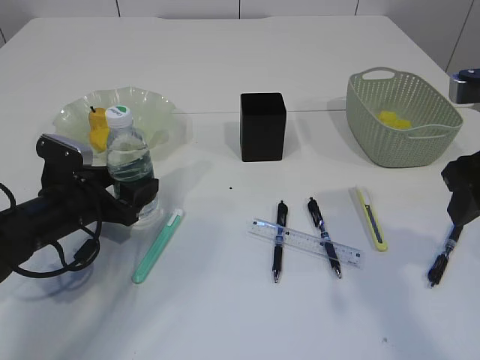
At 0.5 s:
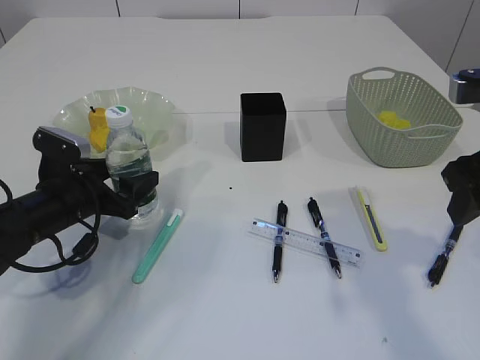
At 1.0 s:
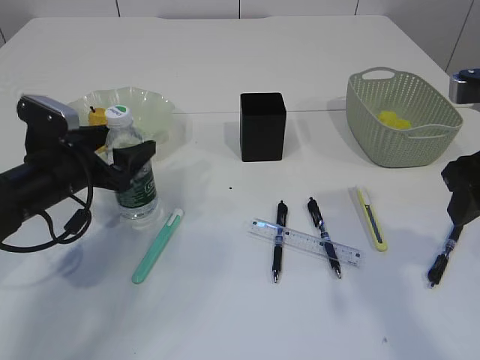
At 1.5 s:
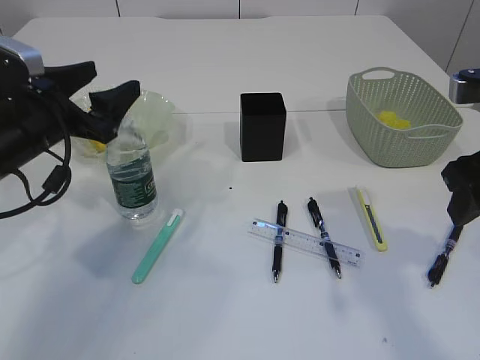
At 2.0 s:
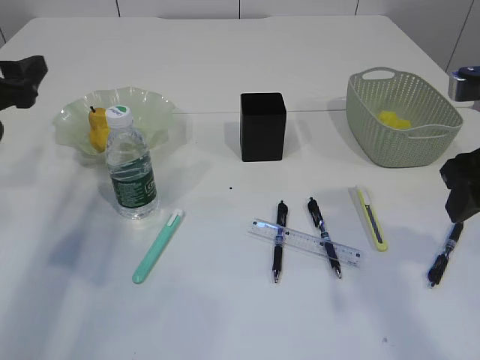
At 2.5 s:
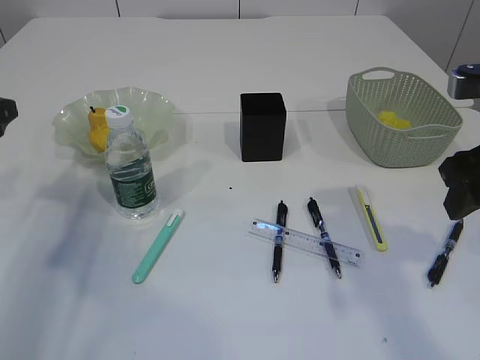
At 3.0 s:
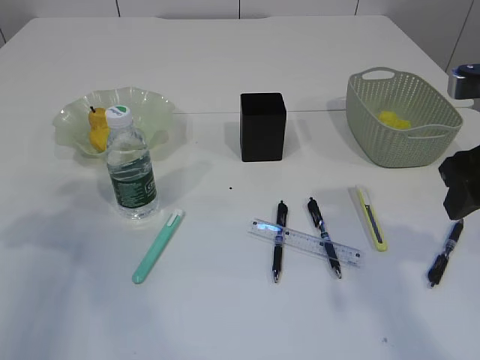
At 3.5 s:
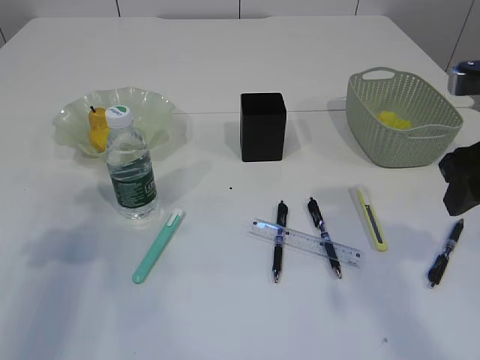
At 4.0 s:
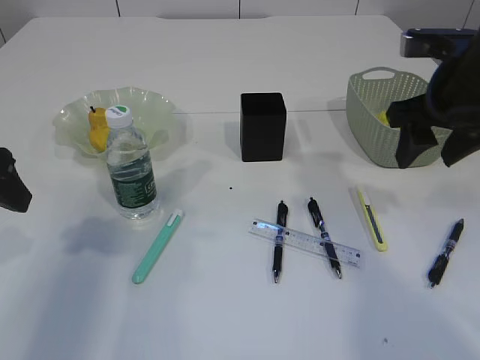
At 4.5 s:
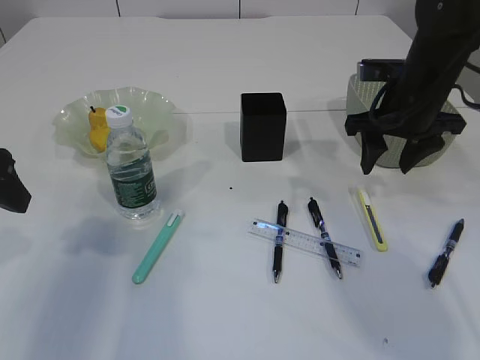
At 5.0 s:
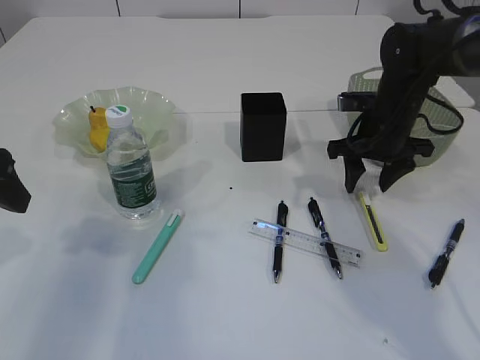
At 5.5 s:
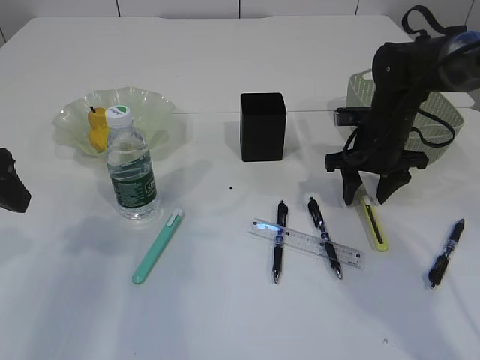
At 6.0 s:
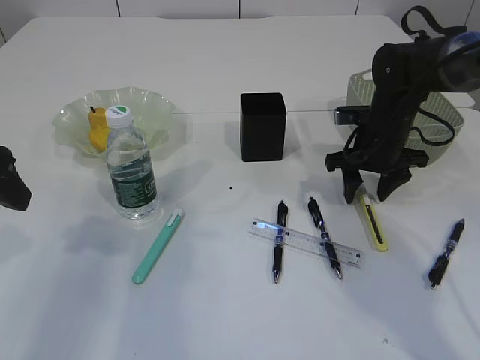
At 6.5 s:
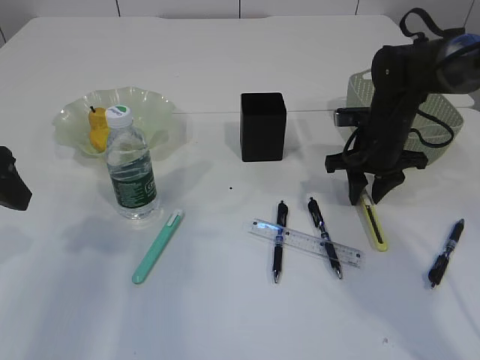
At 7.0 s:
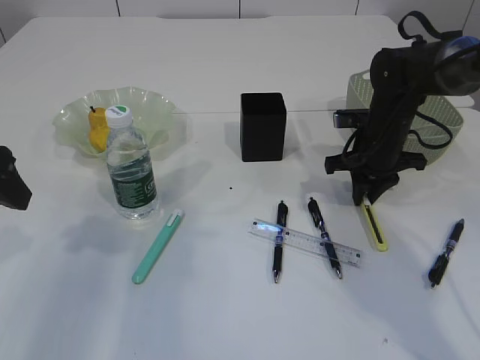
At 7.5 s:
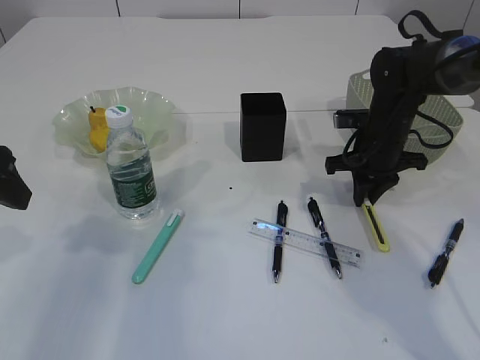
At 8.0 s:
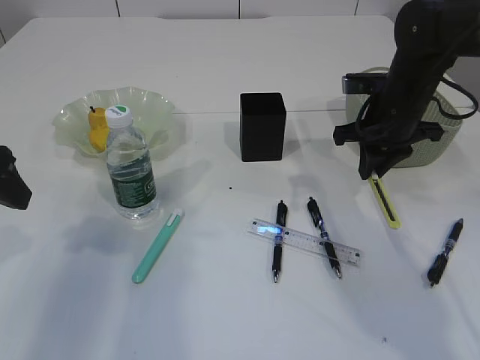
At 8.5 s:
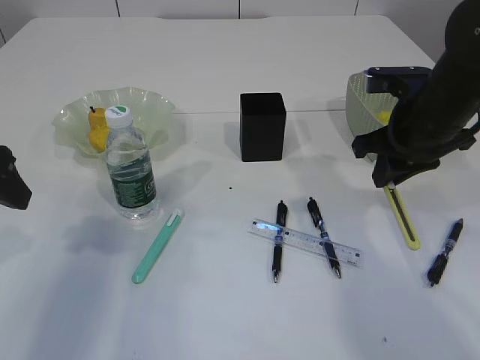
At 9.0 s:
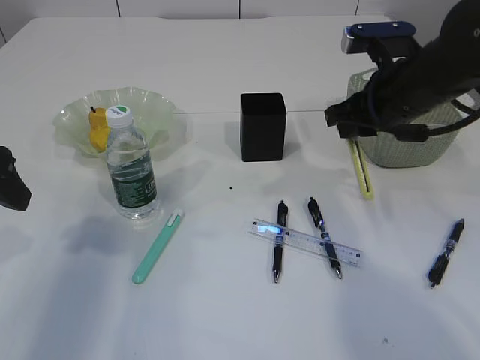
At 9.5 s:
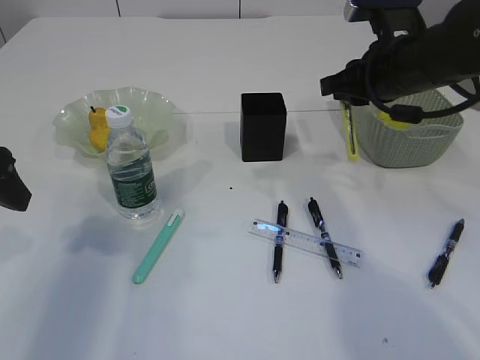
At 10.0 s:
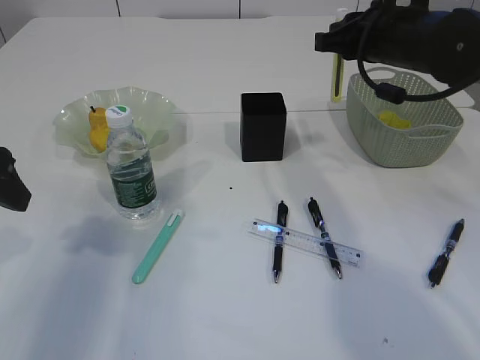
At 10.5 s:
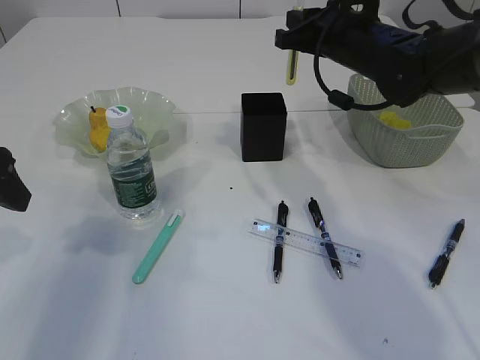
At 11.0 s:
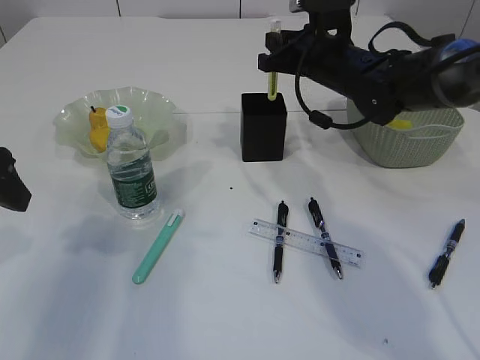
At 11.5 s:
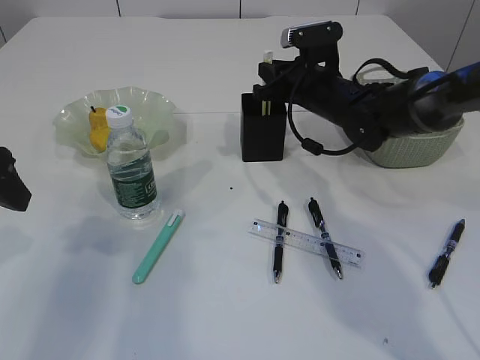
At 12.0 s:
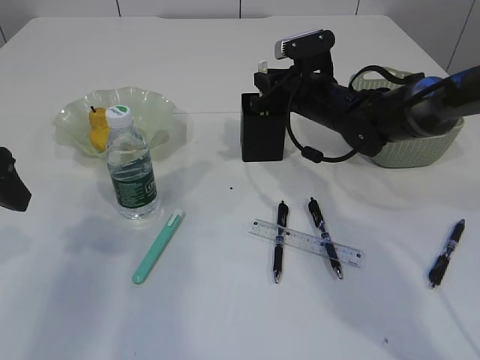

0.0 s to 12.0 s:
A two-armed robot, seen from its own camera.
Step, 1.5 to 7.5 s: pick up the yellow knife.
0.0 to 2.0 s: The left gripper shifts some 15 cm upward and to the left.
2.0 to 4.0 s: The right gripper moves forward, roughly 10 cm, while the left gripper moves backward, about 10 cm.
4.0 to 6.0 s: The right gripper shifts about 20 cm downward and forward.
6.0 to 8.0 s: The right gripper travels upward by roughly 5 cm, and closes its fingers.
8.0 to 10.0 s: The right gripper shifts approximately 10 cm upward.
10.0 to 12.0 s: The right gripper travels downward, forward and to the left by about 15 cm.

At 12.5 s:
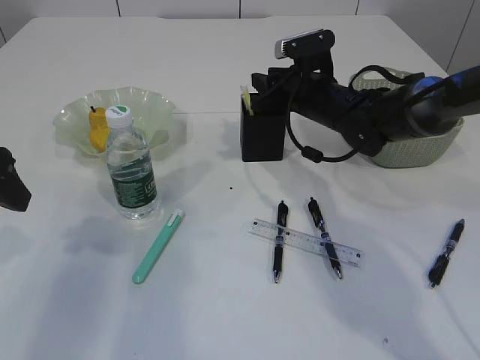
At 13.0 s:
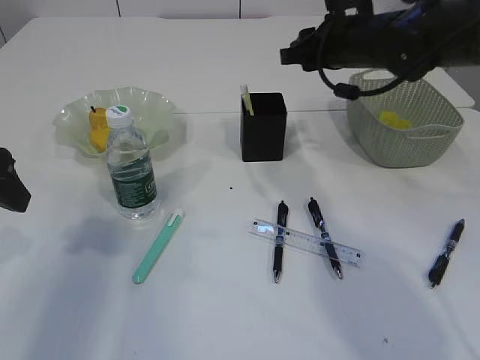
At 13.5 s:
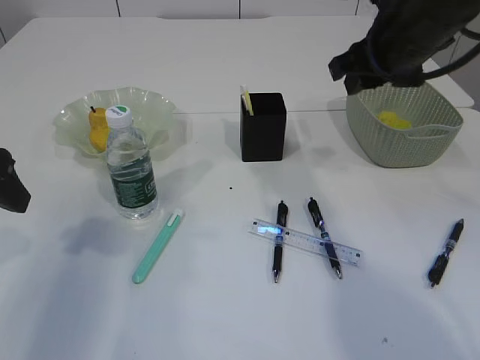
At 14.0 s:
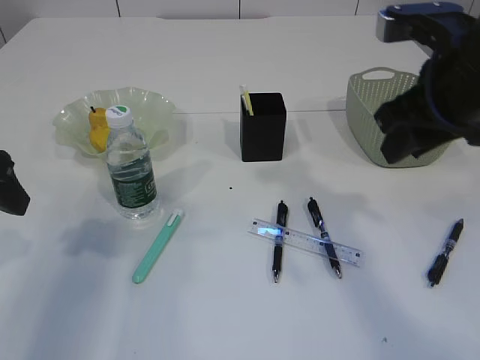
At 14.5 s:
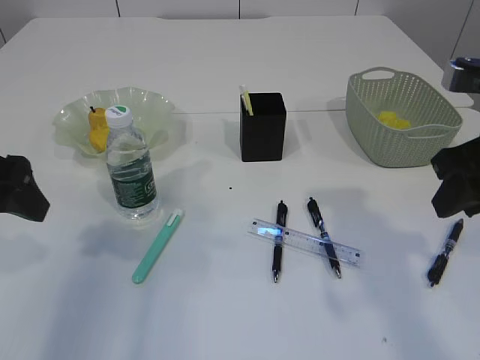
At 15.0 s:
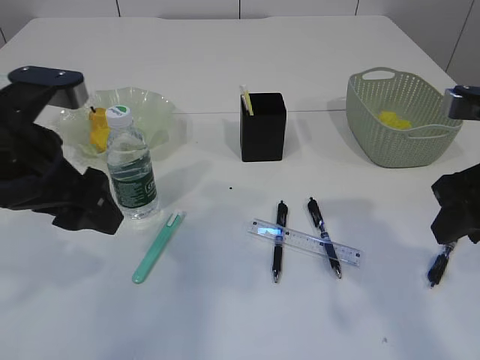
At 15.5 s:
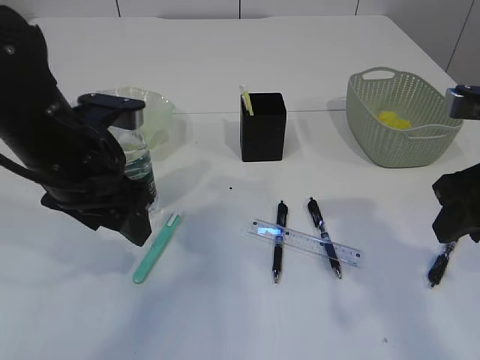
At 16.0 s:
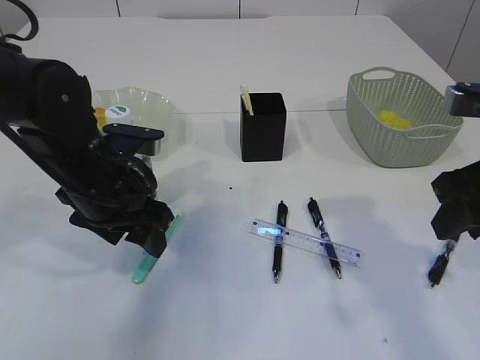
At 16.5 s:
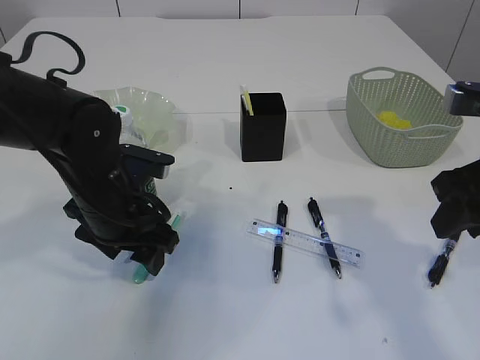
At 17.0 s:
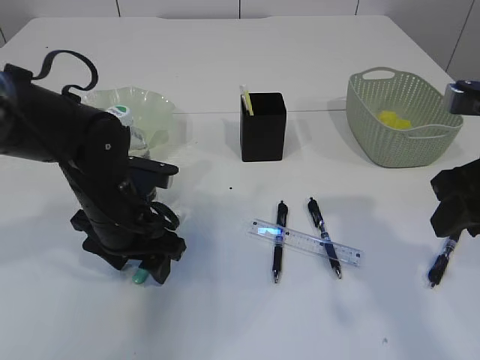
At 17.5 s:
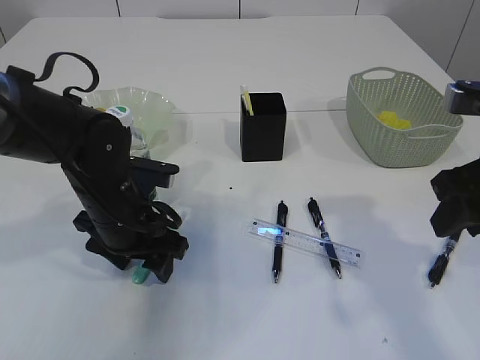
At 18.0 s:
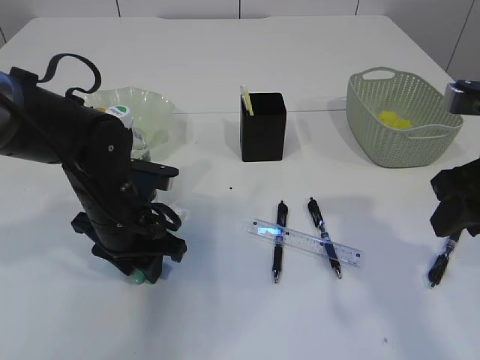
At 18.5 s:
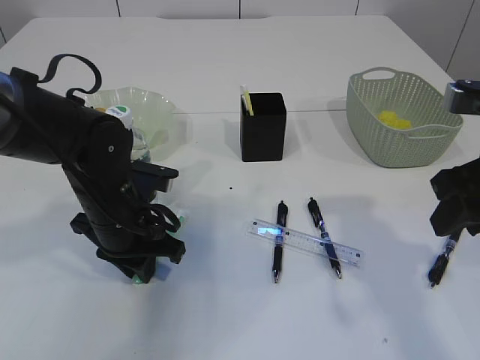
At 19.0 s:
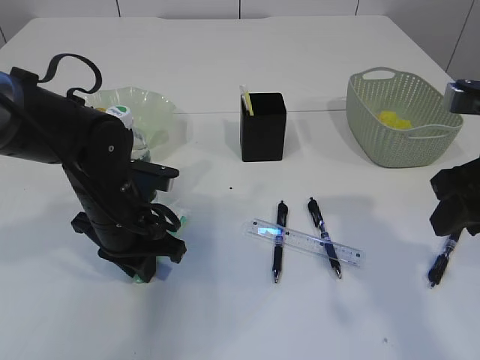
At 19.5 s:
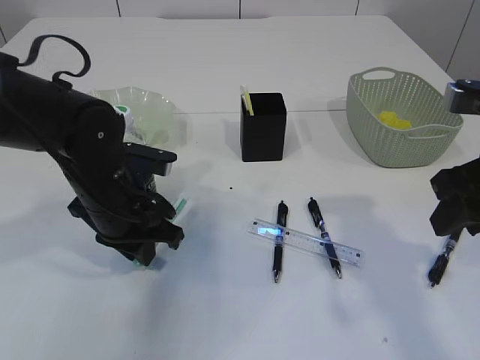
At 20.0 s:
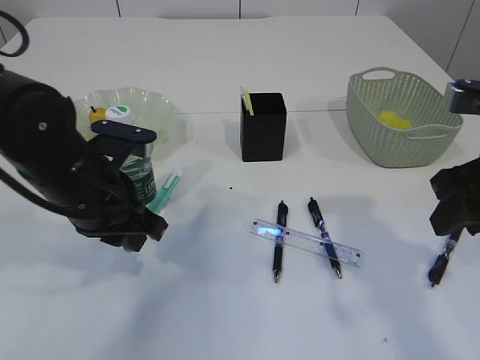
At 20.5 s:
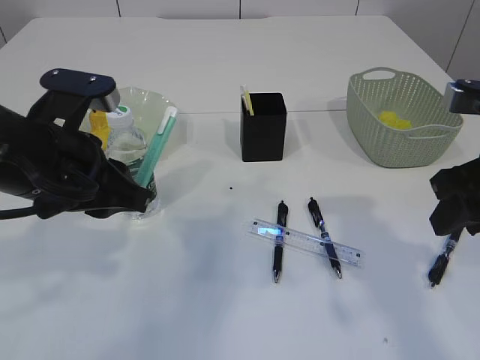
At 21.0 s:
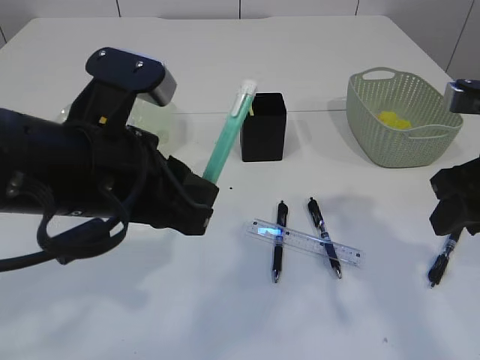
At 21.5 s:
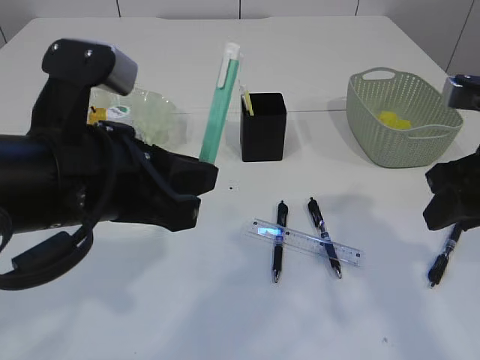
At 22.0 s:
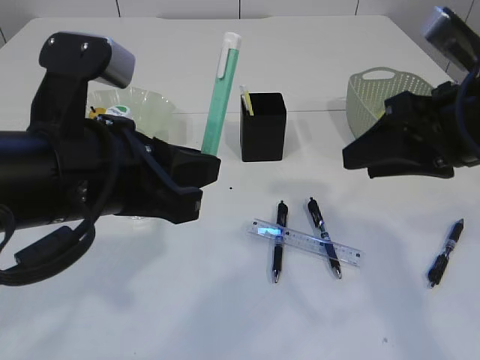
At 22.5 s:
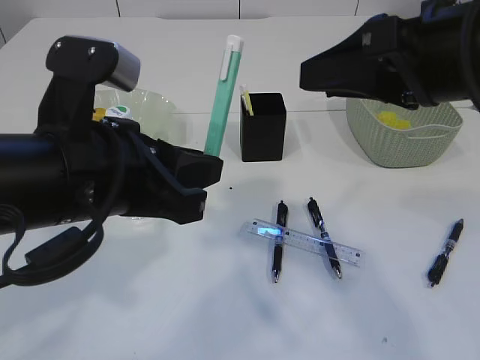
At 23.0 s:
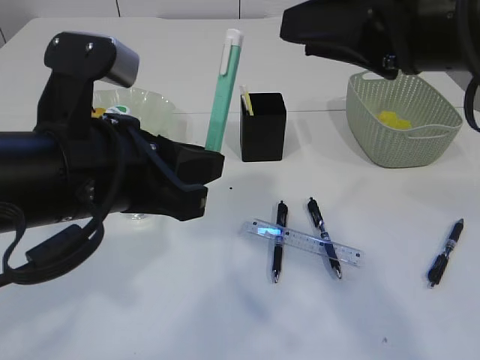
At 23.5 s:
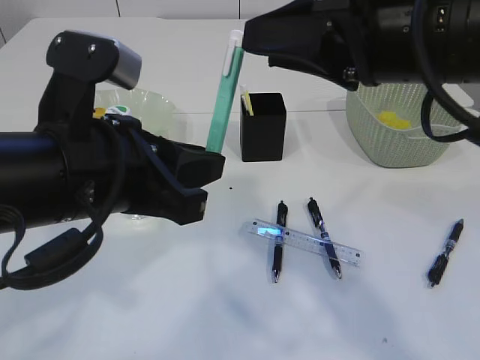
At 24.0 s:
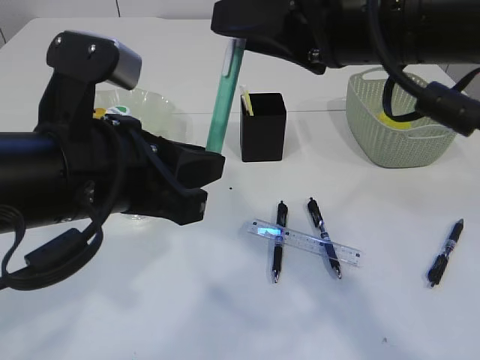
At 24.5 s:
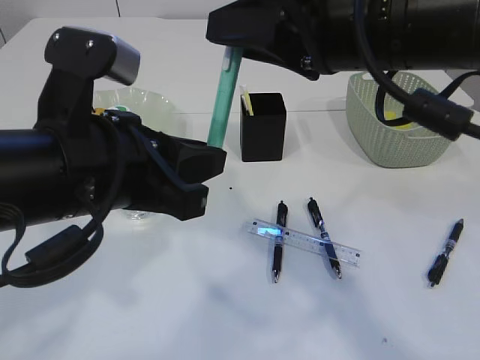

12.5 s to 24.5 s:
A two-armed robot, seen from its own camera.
Step, 13.0 to 19.5 s: pick up the blue knife.
12.5 to 14.5 s: The right gripper is displaced backward, to the right and upward by roughly 25 cm.
14.5 to 16.5 s: The left gripper moves to the right, downward and forward, approximately 15 cm.
16.5 to 18.5 s: The left gripper closes its fingers.
18.5 to 20.5 s: The left gripper travels upward and backward by roughly 15 cm.
20.5 to 22.5 s: The right gripper heads to the left and upward, covering approximately 10 cm. Meanwhile the left gripper is displaced backward by roughly 5 cm.
22.5 to 24.5 s: The right gripper moves to the left, approximately 5 cm.

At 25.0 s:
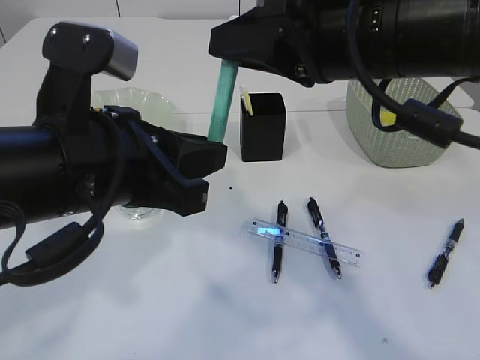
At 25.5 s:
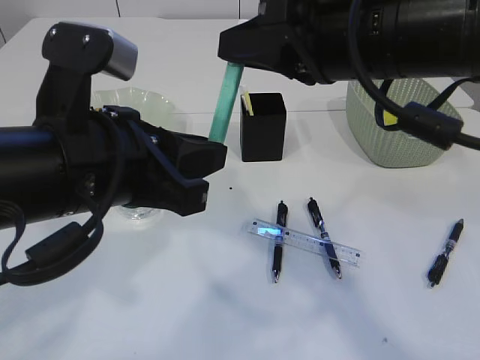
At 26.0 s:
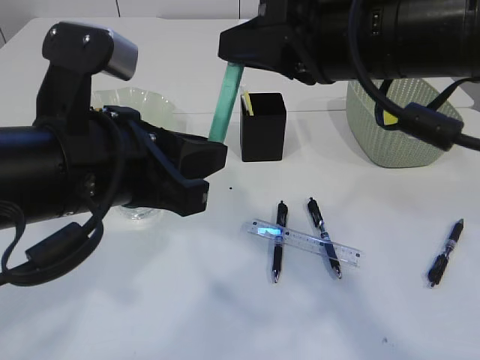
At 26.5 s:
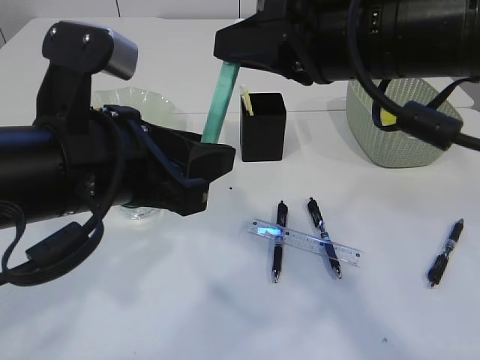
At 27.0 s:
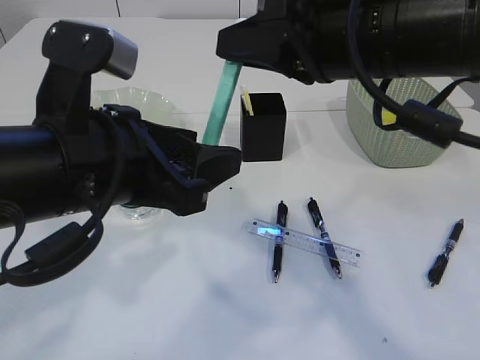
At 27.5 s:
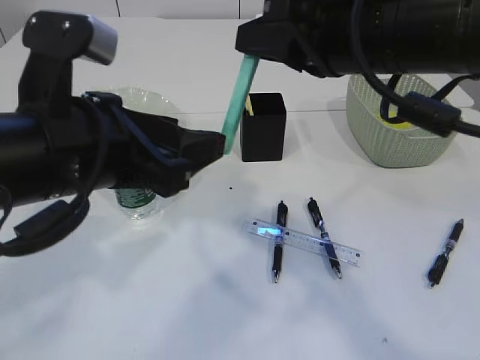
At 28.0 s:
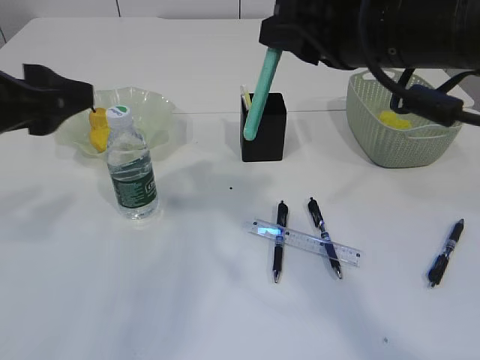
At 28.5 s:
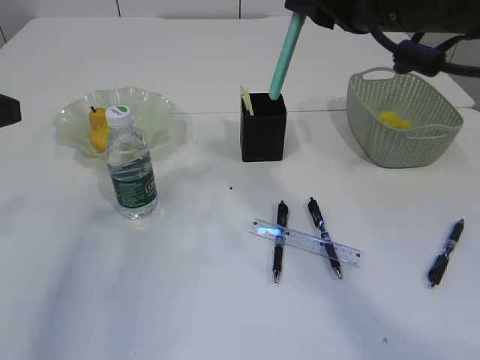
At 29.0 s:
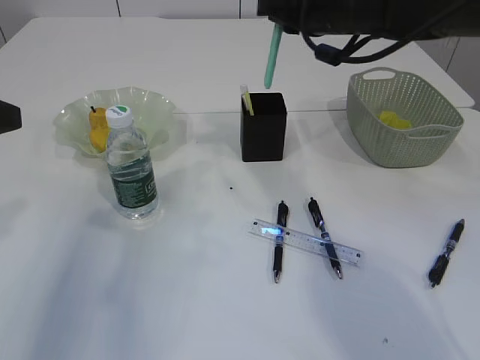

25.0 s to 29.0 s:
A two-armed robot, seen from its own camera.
Step, 25.0 to 27.5 s: Hand over the blue knife.
25.0 to 27.0 s: The left gripper opens.
27.0 to 29.0 s: The right gripper travels forward by about 20 cm. Meanwhile the left gripper shifts about 15 cm to the left.
